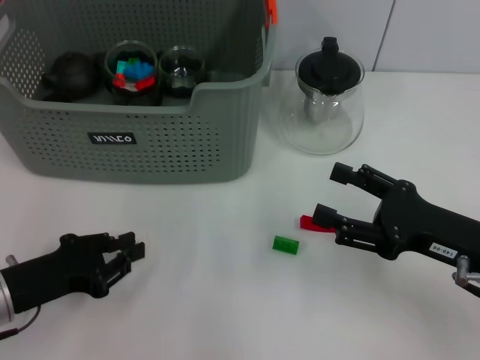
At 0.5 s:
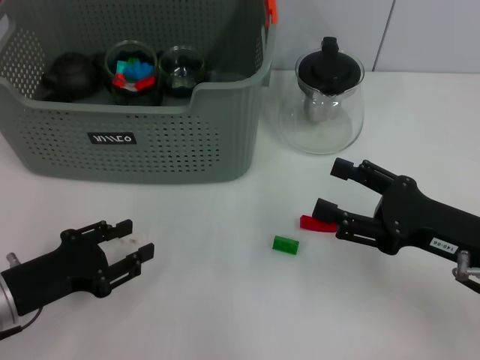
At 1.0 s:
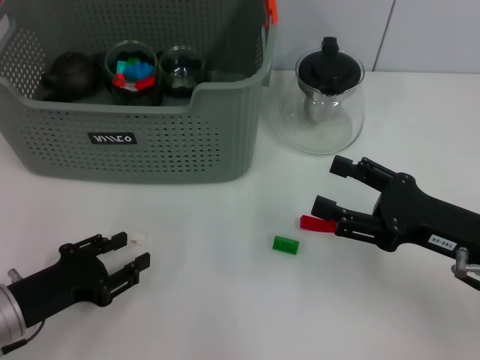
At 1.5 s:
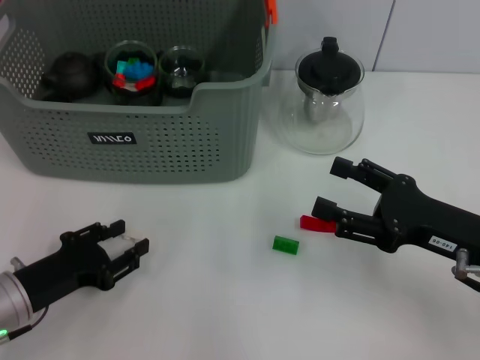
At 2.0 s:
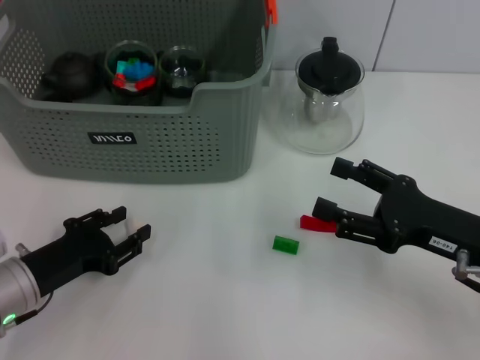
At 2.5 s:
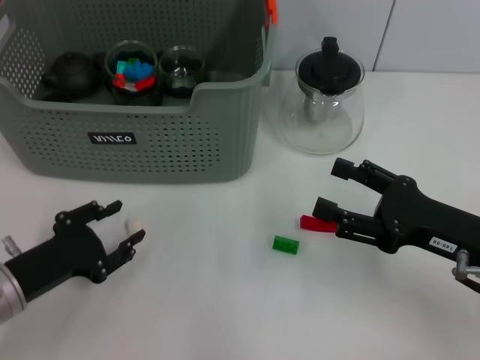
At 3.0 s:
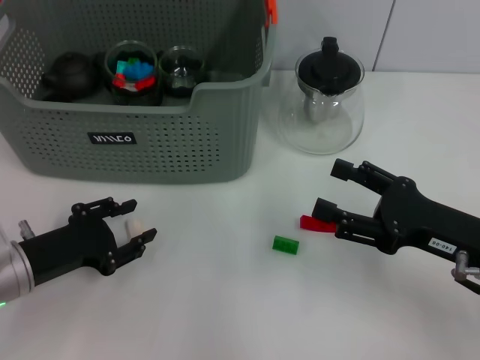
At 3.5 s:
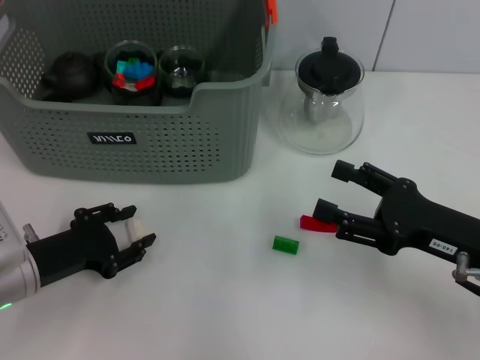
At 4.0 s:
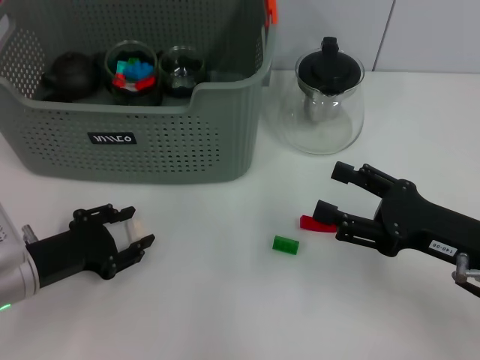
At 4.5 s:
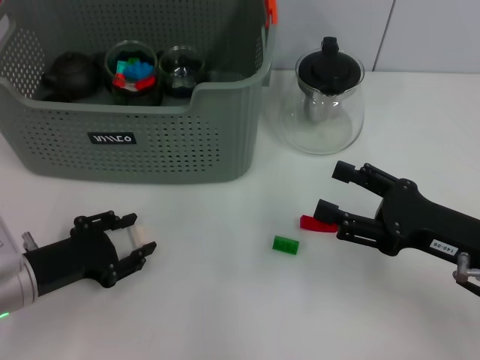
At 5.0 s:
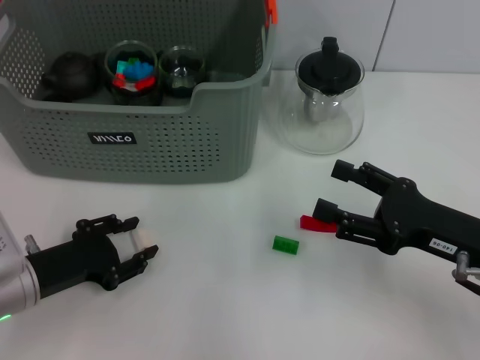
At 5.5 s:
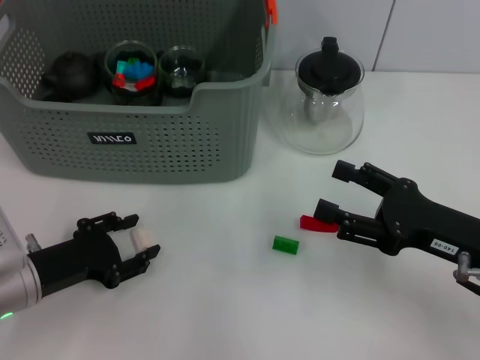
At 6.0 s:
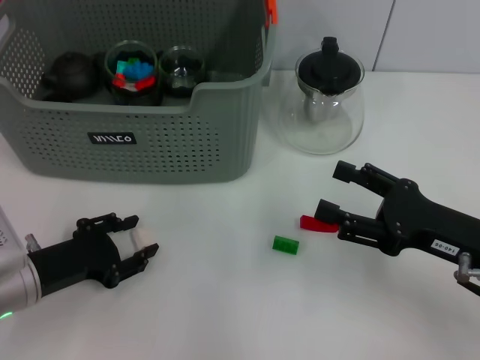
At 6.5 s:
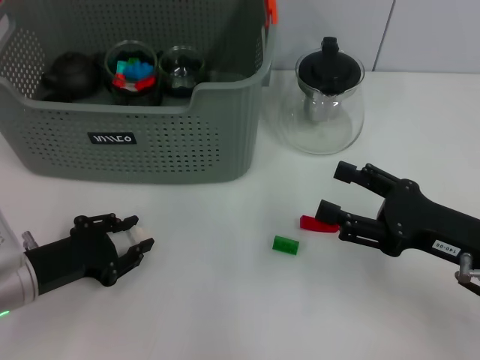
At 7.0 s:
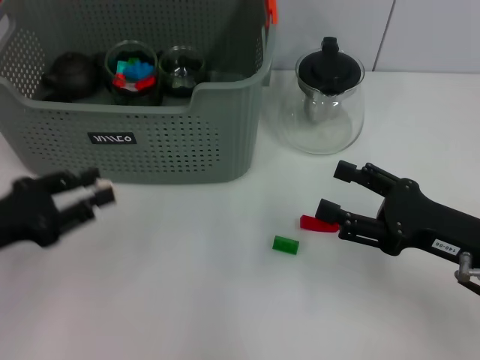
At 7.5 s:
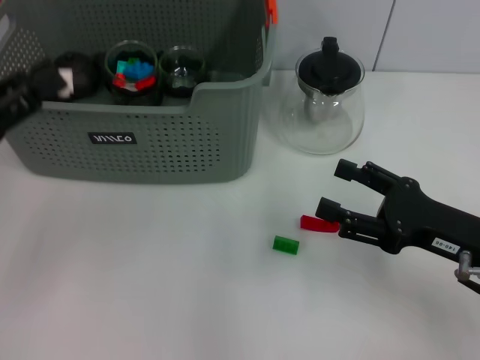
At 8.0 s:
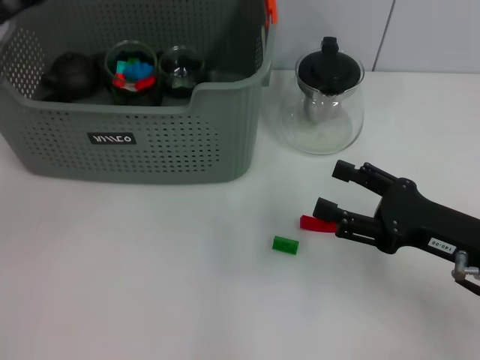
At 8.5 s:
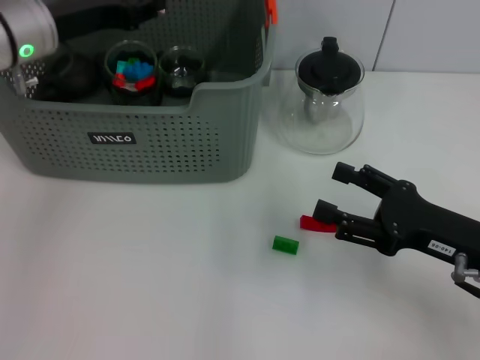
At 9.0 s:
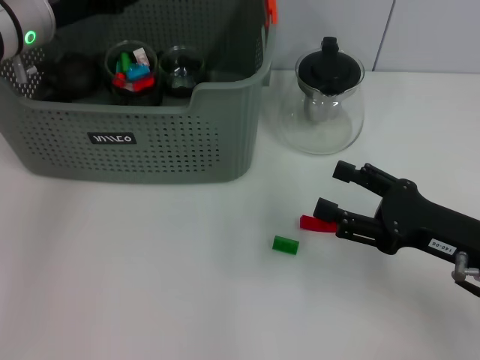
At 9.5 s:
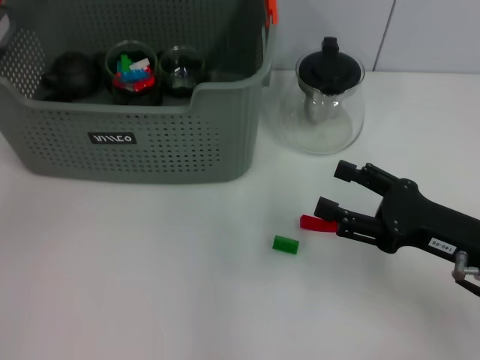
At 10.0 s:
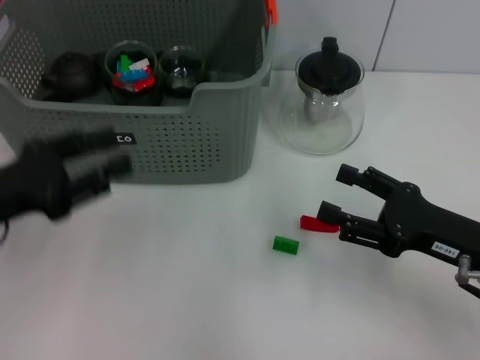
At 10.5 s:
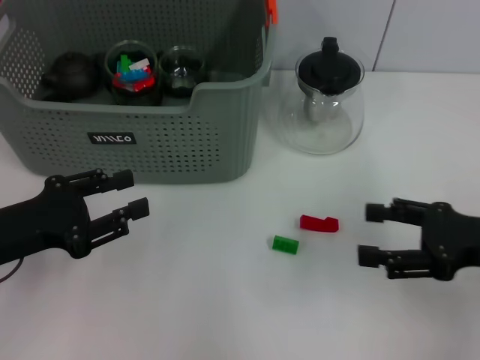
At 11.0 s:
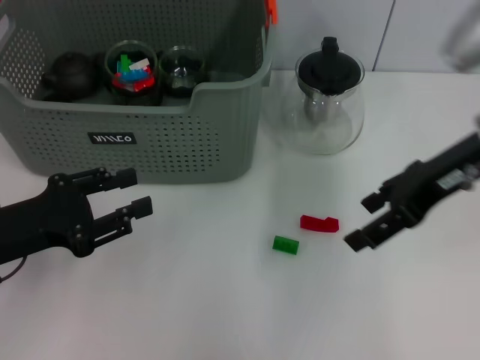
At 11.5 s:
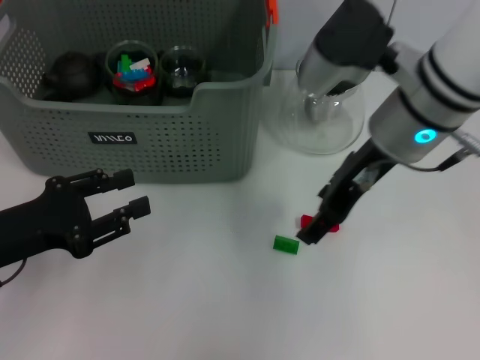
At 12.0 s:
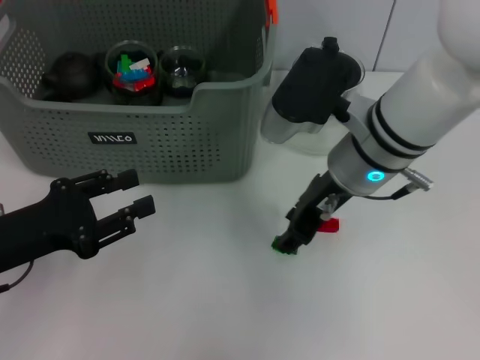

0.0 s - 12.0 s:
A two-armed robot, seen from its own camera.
Task of the whole recording: pick up the teacup on the table and place it into the storage bin, pick up the block on the table and place it into the storage bin.
Step, 0.0 s - 6.5 s: Grasp the white block with left gripper.
Step, 7.0 s - 9.0 s: Place the white block in the storage box with left gripper.
0.0 s - 2.0 s: The left gripper opens its fingers.
4.0 s - 6.0 s: The two grippers keep their place.
6.0 s - 8.0 s: The left gripper travels upward and forward by roughly 20 cm.
8.0 s - 10.0 s: The left gripper moves backward and downward, about 10 cm.
10.0 s - 12.0 s: The right gripper goes about 20 cm to the left, forward and upward.

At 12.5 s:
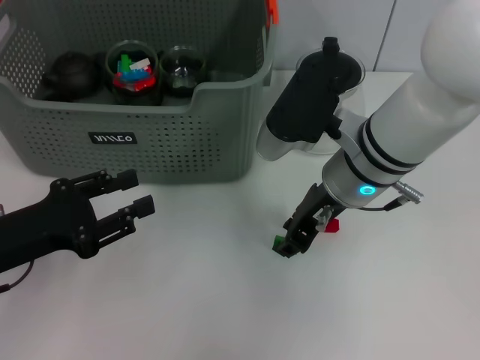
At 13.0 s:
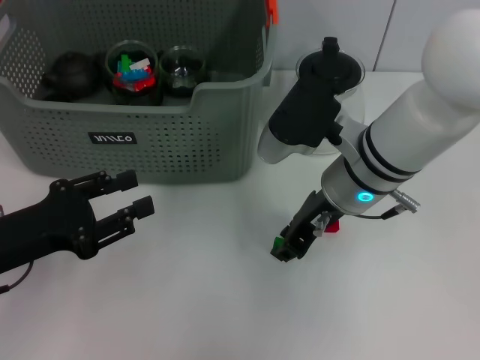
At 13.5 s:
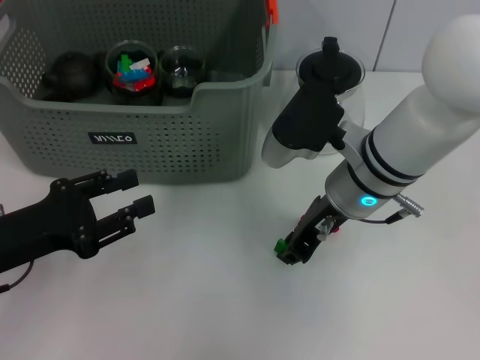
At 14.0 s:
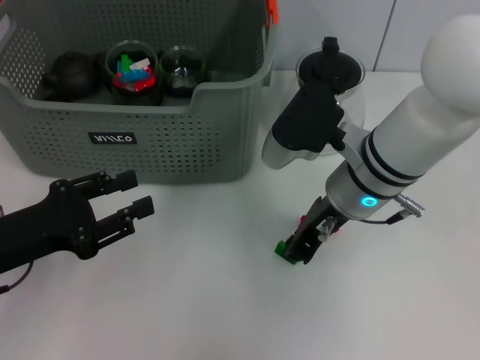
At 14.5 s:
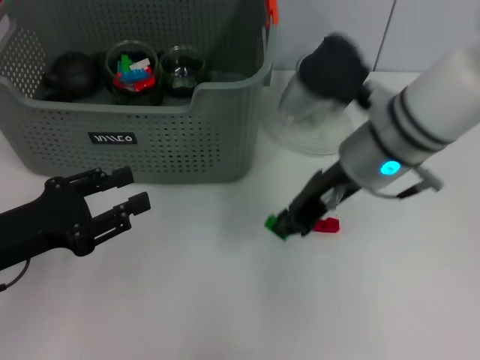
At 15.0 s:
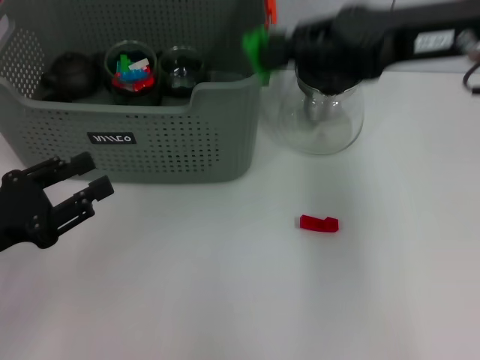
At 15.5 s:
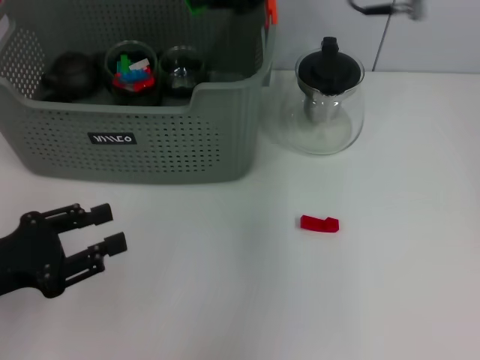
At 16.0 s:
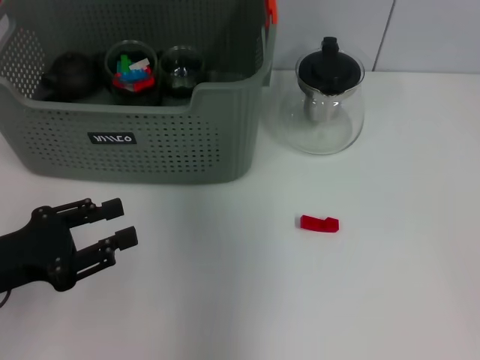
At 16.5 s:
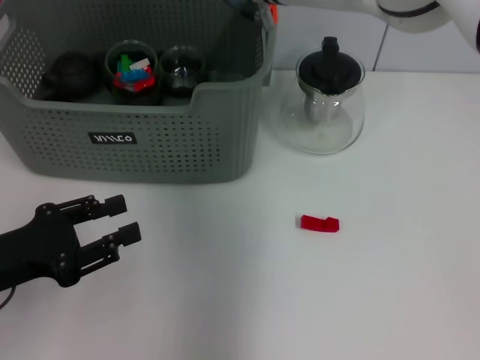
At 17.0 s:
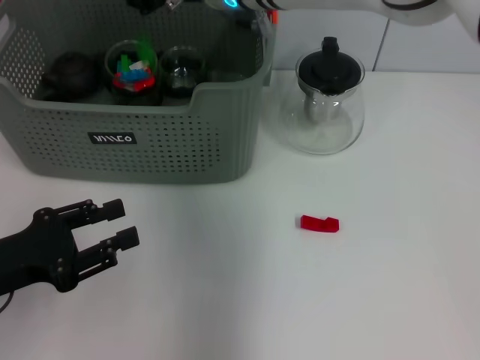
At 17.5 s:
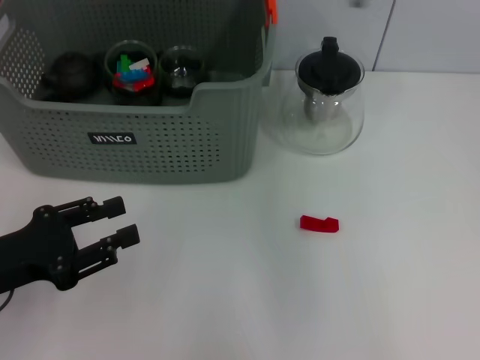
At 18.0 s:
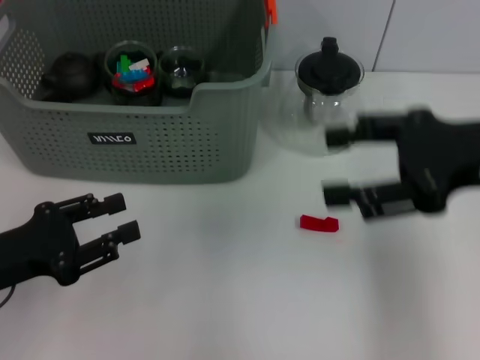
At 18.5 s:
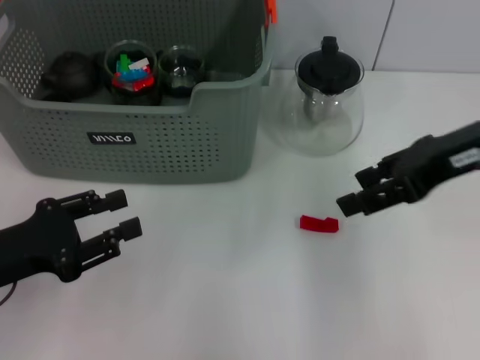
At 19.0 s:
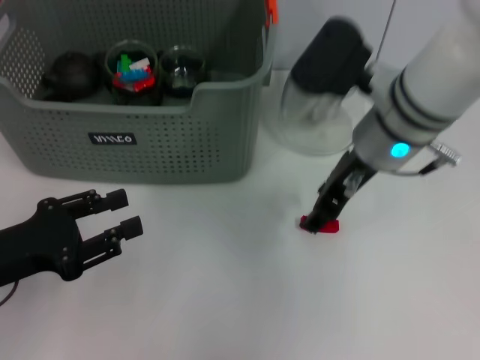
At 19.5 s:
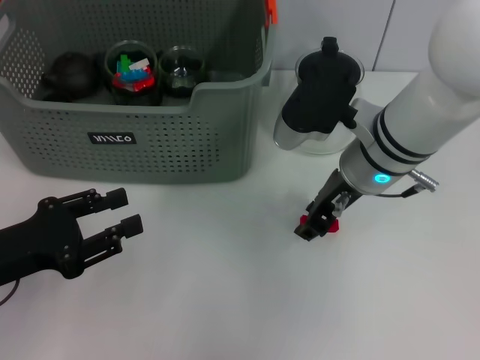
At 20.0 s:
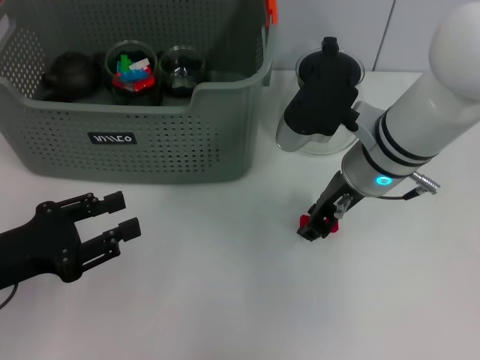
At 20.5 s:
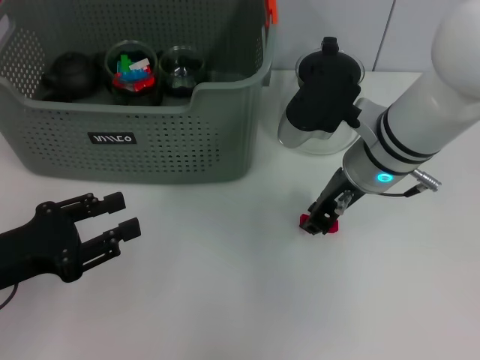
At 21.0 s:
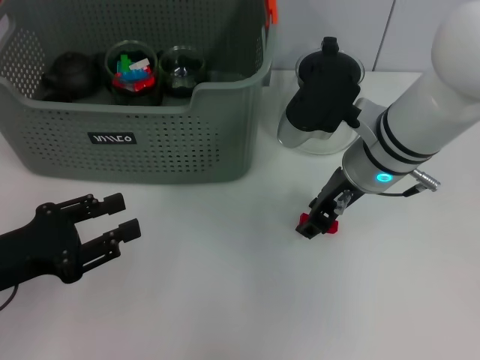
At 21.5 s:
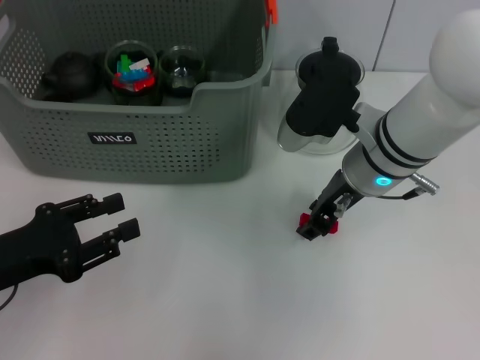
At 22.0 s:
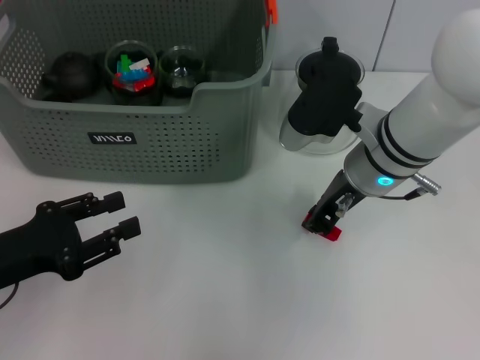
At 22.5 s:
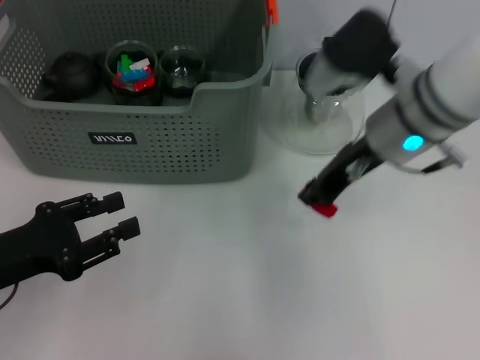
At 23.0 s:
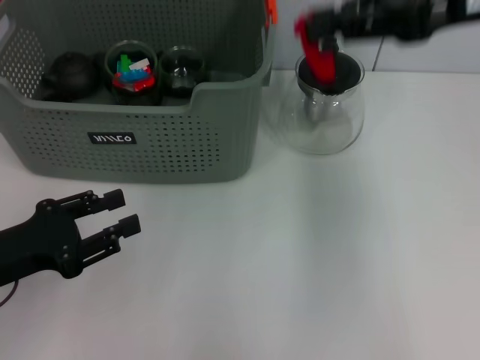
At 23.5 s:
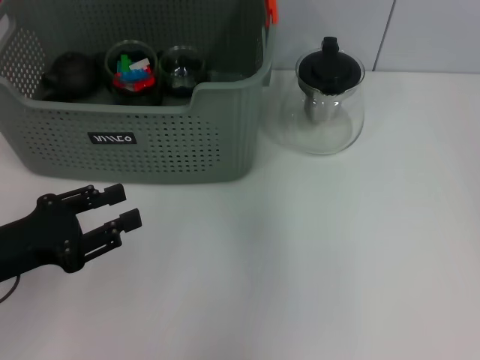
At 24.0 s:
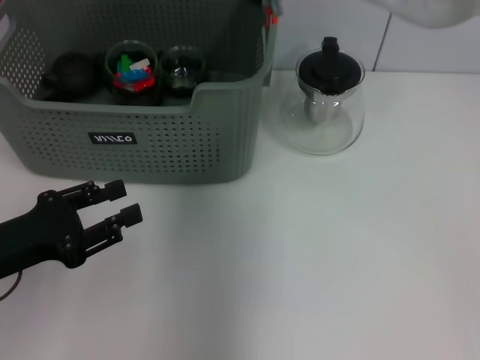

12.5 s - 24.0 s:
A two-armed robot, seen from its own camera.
Task of the whole recording: pick up the teacup on the table and place it into the storage bin, pick up the block on the table and place it into the storage bin.
Step, 14.5 s - 17.0 s: Place the green block in the storage box with right gripper.
Step, 17.5 s - 21.5 s: Grasp the red block with right gripper.
12.5 s - 14.5 s: The right gripper closes.
14.5 s - 16.5 s: The right gripper is displaced to the left, forward and upward by some 15 cm.
16.5 s - 18.5 s: The right gripper shifts about 25 cm to the right and backward, and opens its fingers.
18.5 s - 20.0 s: The right gripper heads to the left and downward, covering approximately 15 cm, and closes.
20.0 s - 22.0 s: Neither gripper changes place.
22.0 s - 24.0 s: The right gripper is displaced upward, to the left and forward by about 20 cm.

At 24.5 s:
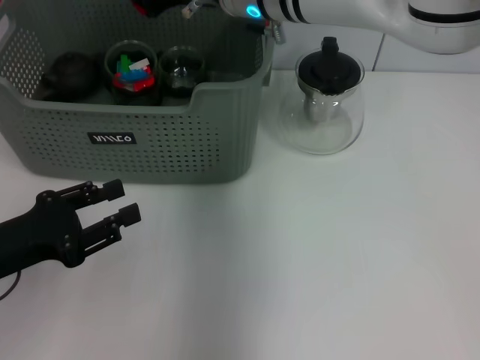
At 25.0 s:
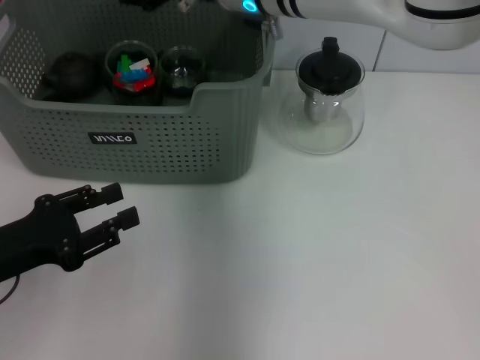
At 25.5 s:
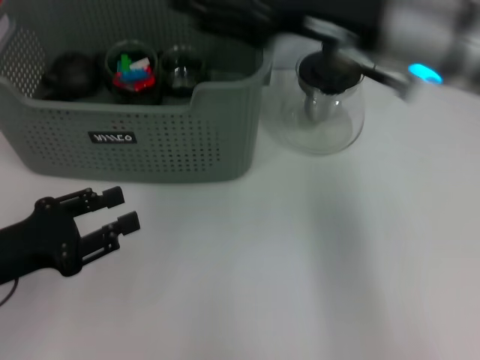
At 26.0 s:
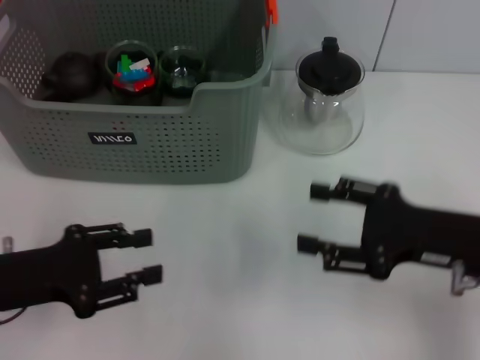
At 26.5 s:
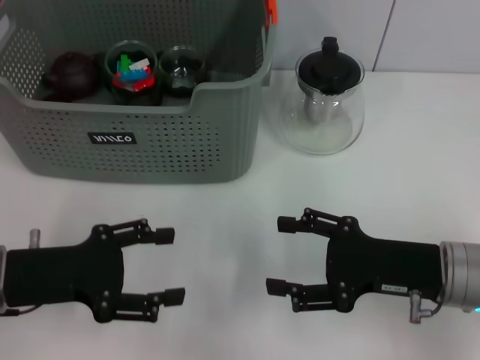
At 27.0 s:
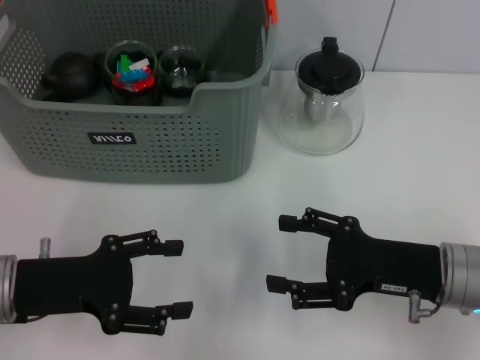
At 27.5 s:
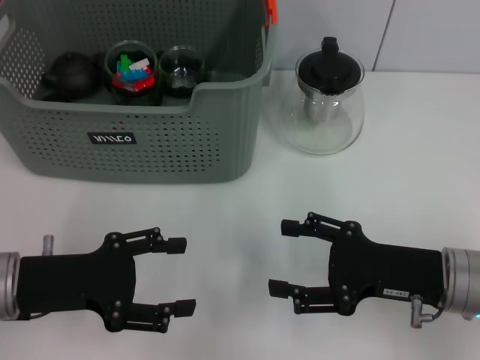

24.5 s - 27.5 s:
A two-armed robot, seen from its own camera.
Task of the whole recording: pick up the teacup on the table and place it into the storage bin, pick up the block on the table and place it into the storage bin.
24.5 s - 26.0 s: The right gripper travels to the right, backward and downward by approximately 30 cm, and opens its fingers.
26.0 s - 27.5 s: The left gripper opens.
